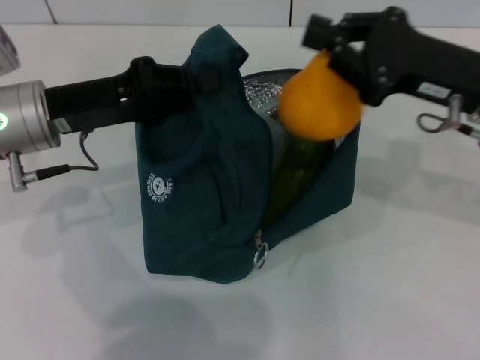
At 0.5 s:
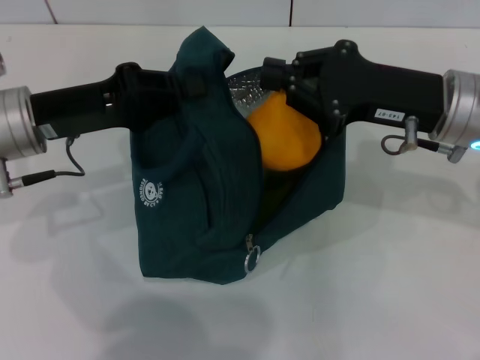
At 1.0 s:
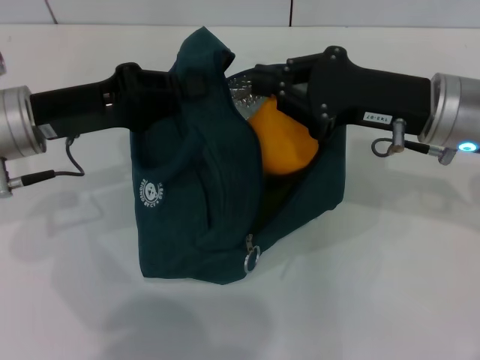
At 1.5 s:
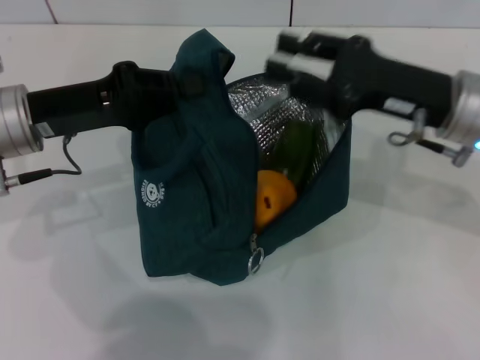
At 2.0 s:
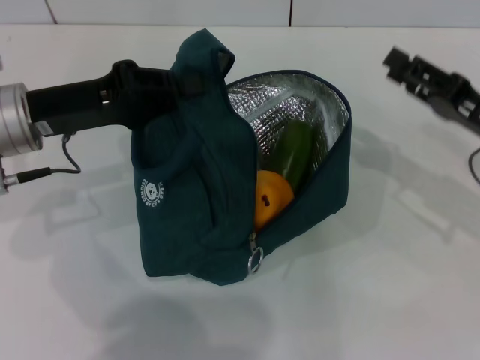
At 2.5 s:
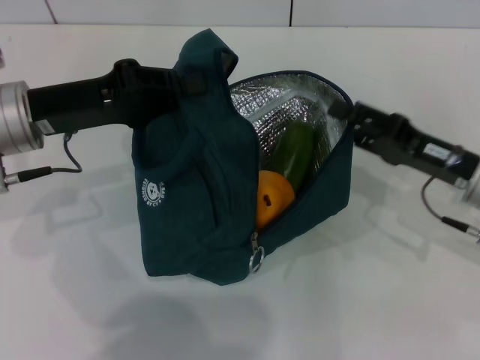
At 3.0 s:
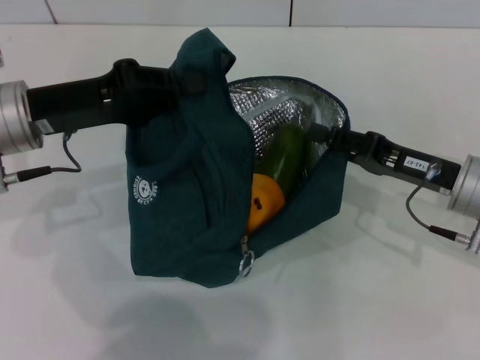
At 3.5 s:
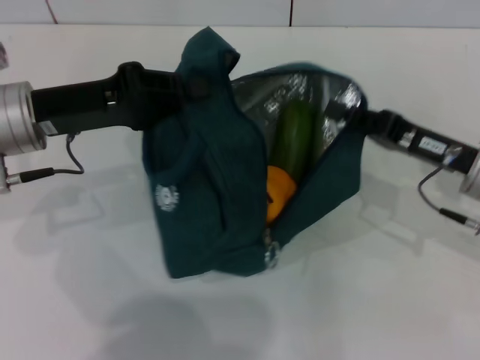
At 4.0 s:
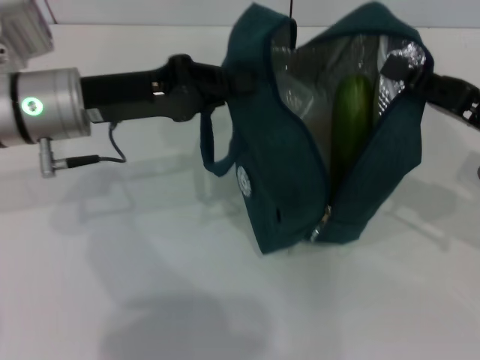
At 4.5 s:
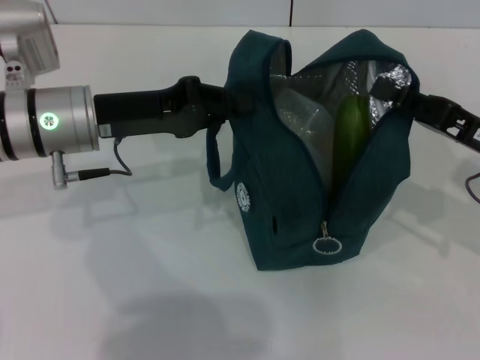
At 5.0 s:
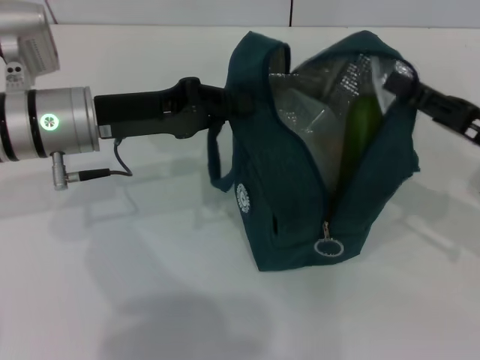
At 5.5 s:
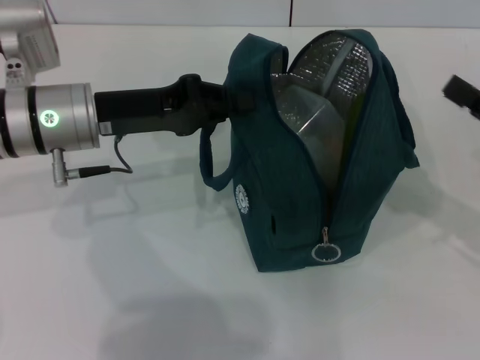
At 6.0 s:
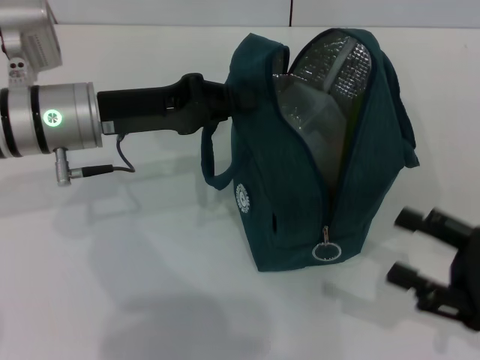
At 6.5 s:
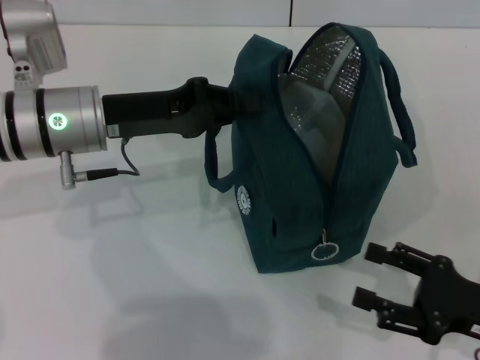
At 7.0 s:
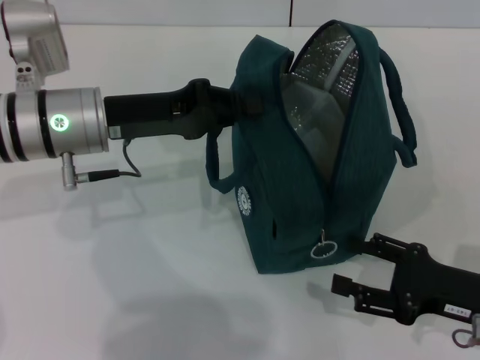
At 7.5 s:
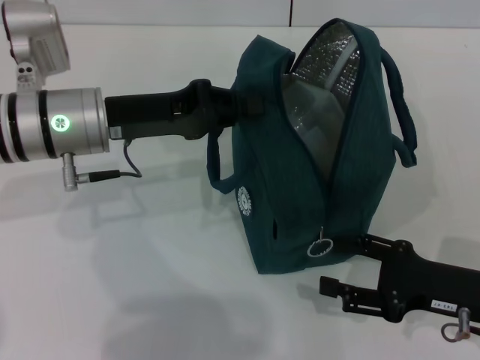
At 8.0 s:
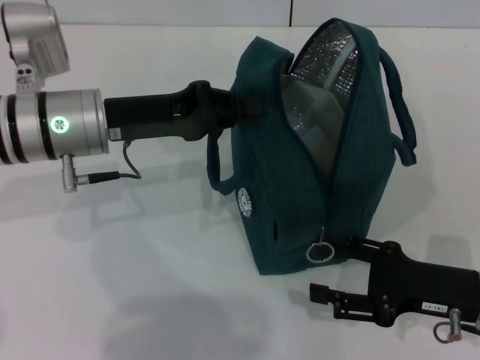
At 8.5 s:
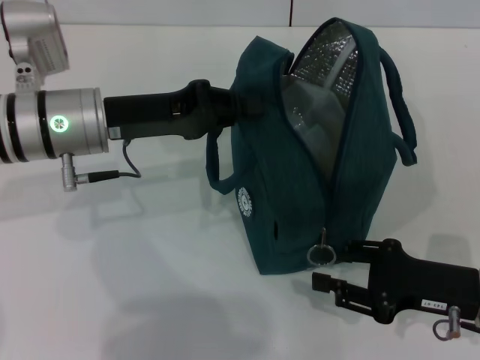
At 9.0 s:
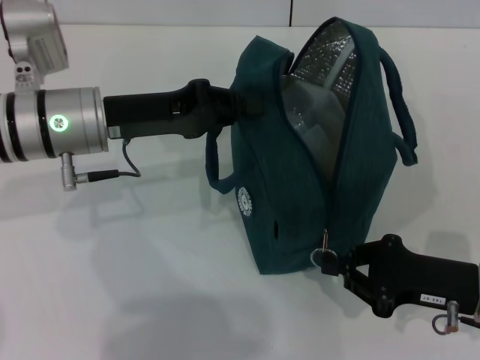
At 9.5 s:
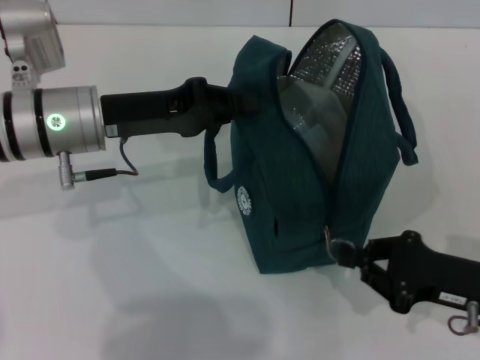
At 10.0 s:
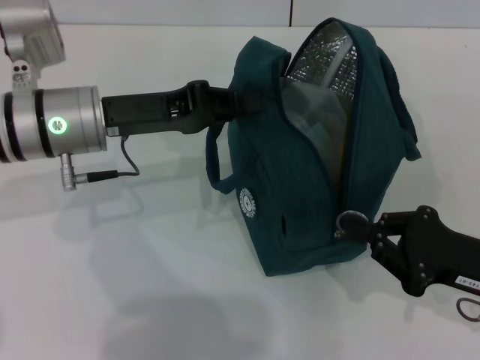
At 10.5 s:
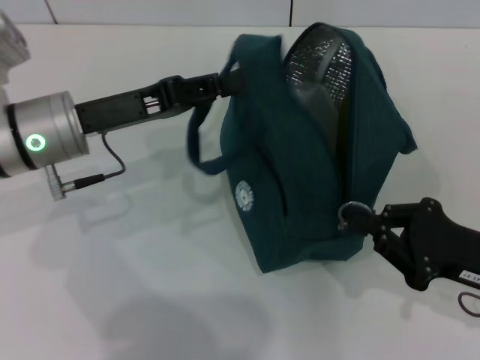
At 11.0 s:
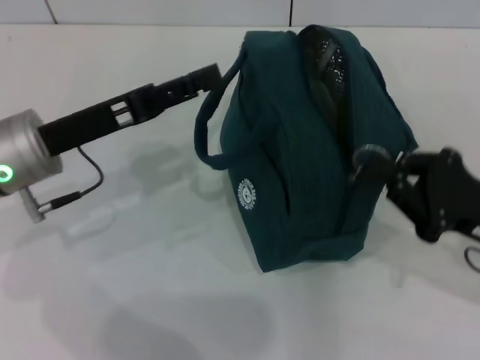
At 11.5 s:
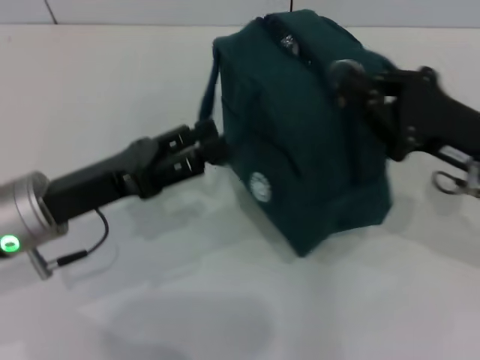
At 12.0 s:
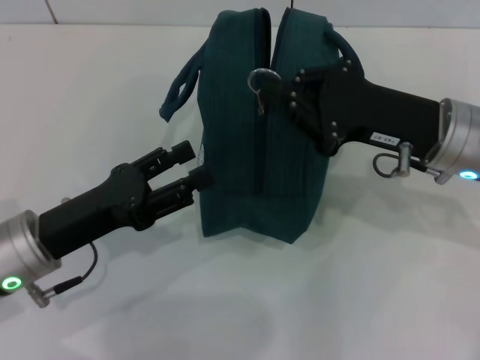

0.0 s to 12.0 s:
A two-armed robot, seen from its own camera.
Step, 1.5 to 5.0 s: Hold the lunch bag with your right hand.
Step, 5.5 to 10.5 s: Hold the lunch bag with your left hand.
0.0 to 2.0 s: The right gripper is displaced downward and to the right by roughly 10 cm, and opens up.
2.0 to 4.0 s: The right gripper closes its fingers.
4.0 to 6.0 s: The right gripper is displaced backward and downward by approximately 10 cm, and opens.
6.0 to 8.0 s: The right gripper moves some 5 cm.
8.0 to 10.0 s: The right gripper closes its fingers.
10.0 to 12.0 s: The right gripper goes approximately 15 cm forward, to the left and upward, while the left gripper shifts roughly 15 cm backward and downward, and opens up.

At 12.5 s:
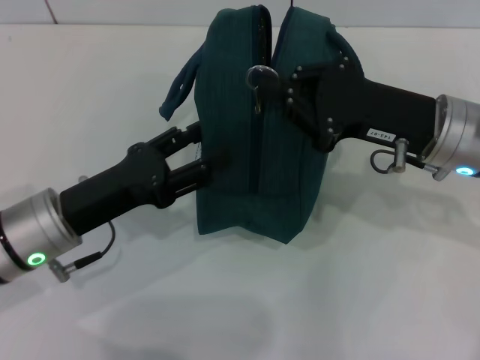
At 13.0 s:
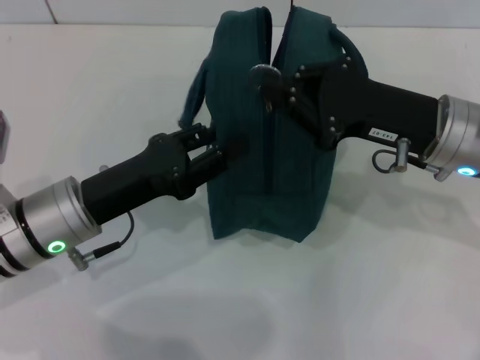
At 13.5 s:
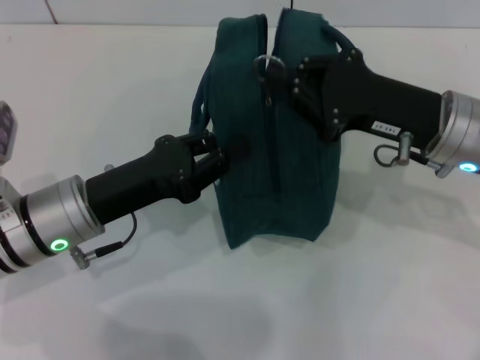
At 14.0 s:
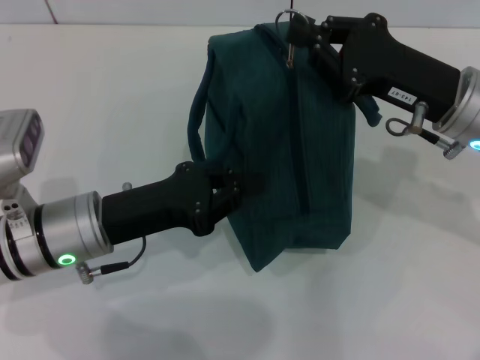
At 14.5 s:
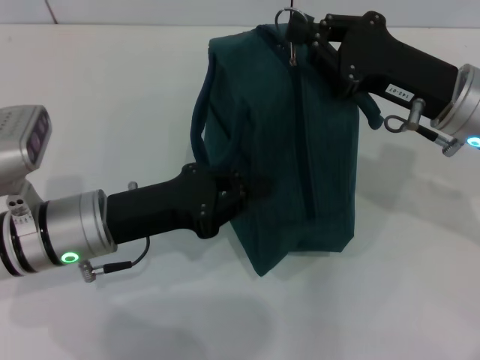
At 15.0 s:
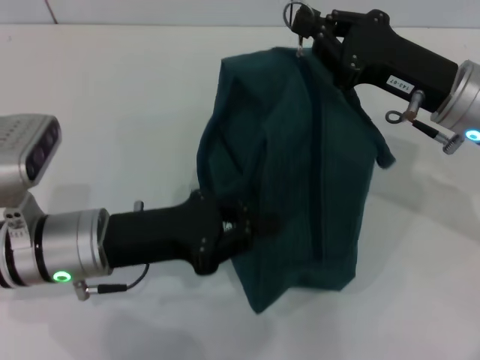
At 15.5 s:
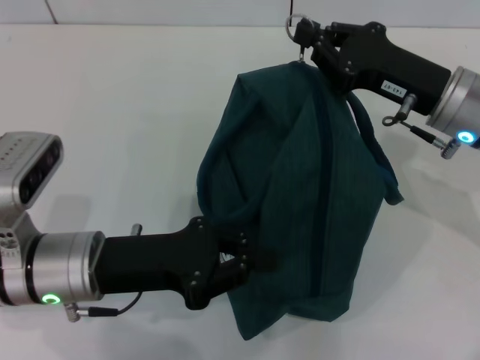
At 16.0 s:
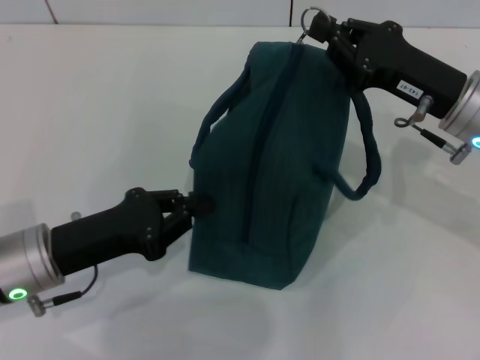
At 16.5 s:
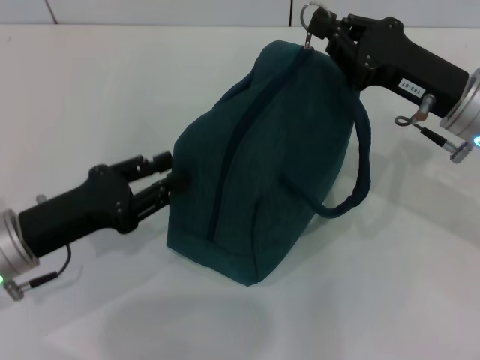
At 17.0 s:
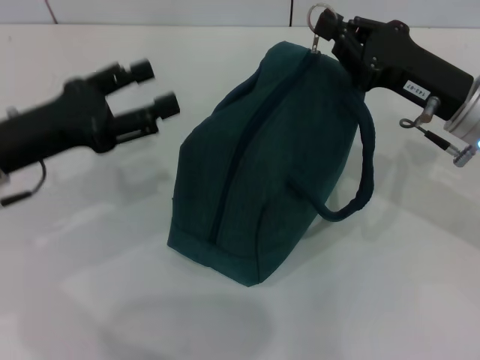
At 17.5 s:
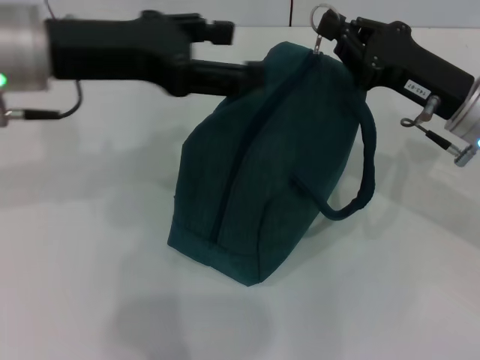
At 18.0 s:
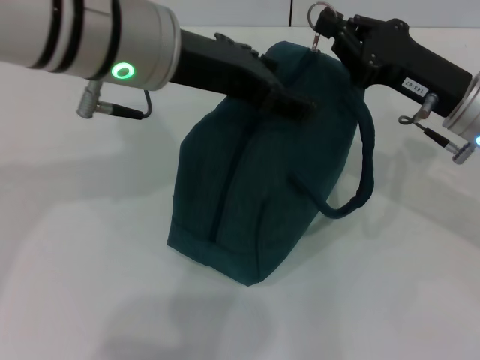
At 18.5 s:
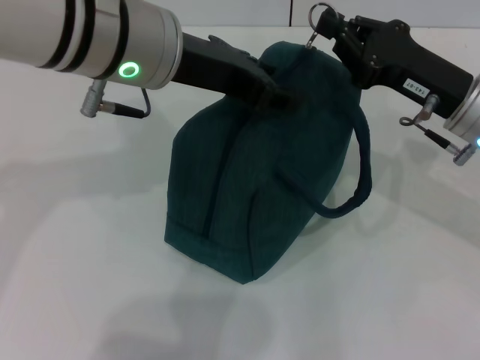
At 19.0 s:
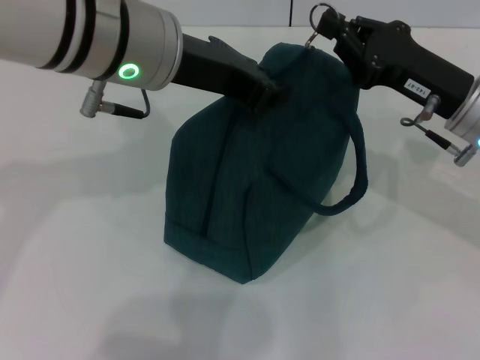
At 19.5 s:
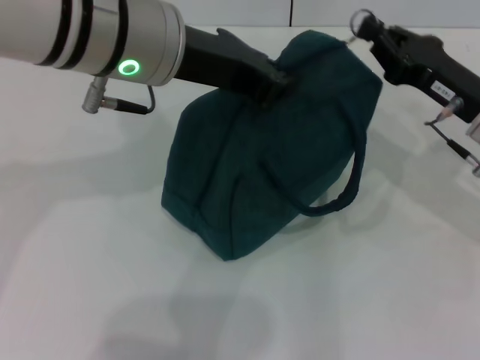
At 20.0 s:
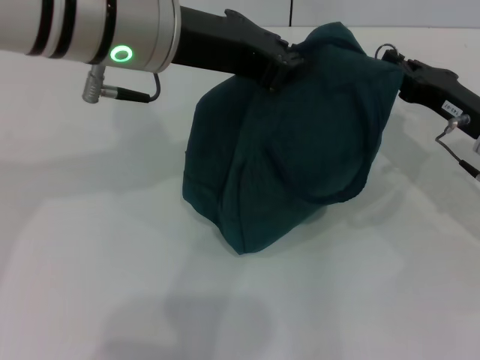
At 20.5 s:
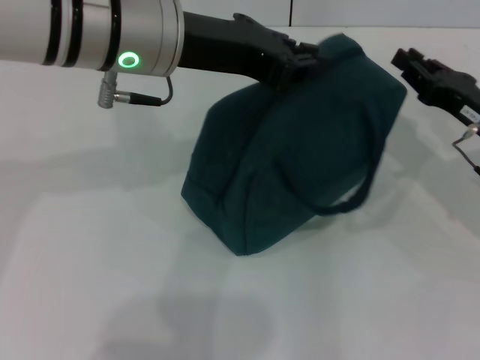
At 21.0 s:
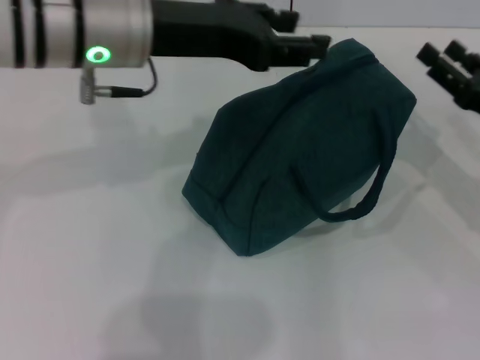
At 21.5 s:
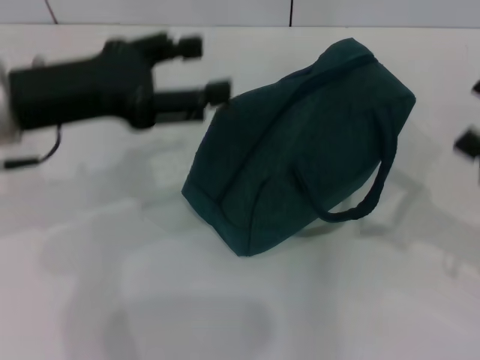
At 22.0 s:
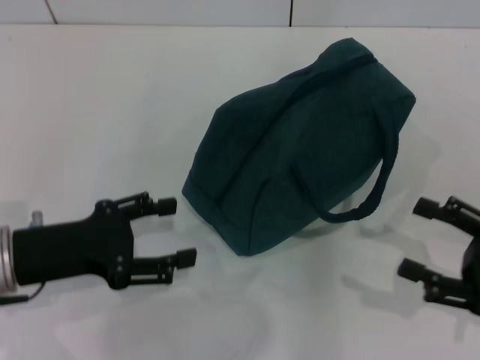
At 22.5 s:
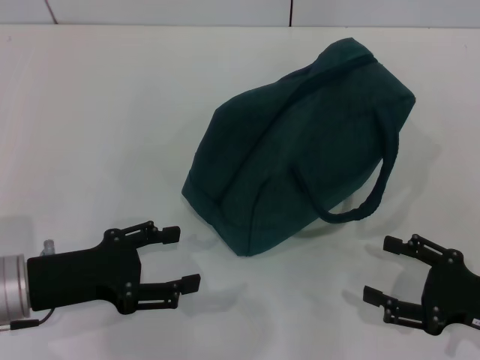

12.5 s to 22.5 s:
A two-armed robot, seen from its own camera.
Step, 12.5 to 20.0 s: Zip up the lunch bag with your right hand.
12.5 to 14.5 s: The left gripper closes.
14.5 to 16.5 s: The left gripper is displaced to the left by some 5 cm.
16.5 to 18.5 s: The left gripper moves upward, to the right and forward, roughly 25 cm, and opens up.
18.5 to 20.5 s: The left gripper closes up; the right gripper heads to the right and downward, covering about 10 cm.
20.5 to 22.5 s: The left gripper travels downward, to the left and backward by some 25 cm, and opens its fingers. The right gripper moves backward and downward, roughly 15 cm, and opens its fingers.

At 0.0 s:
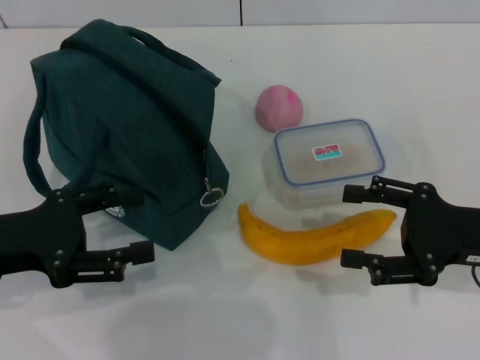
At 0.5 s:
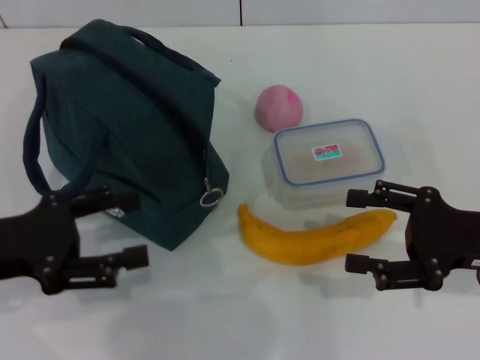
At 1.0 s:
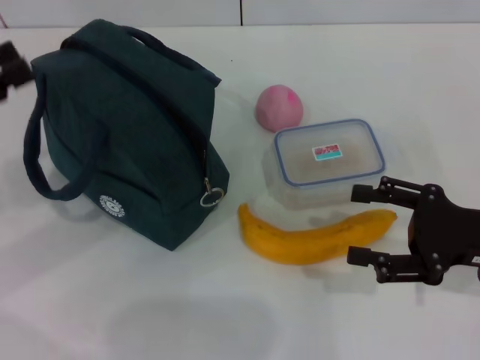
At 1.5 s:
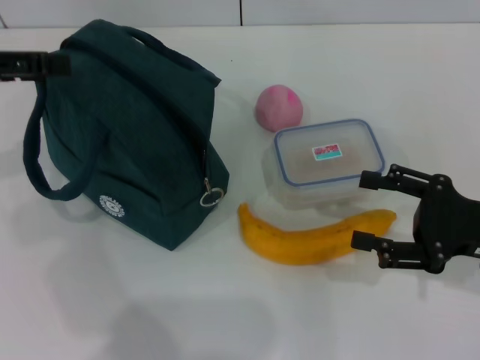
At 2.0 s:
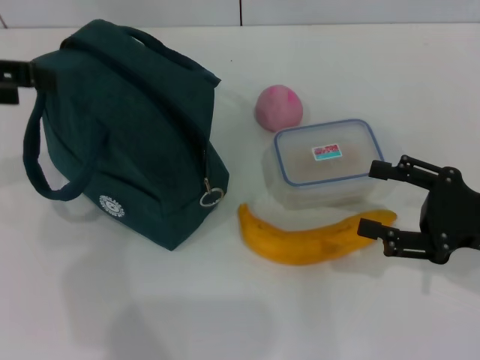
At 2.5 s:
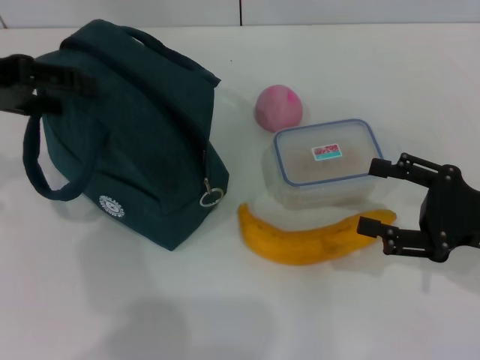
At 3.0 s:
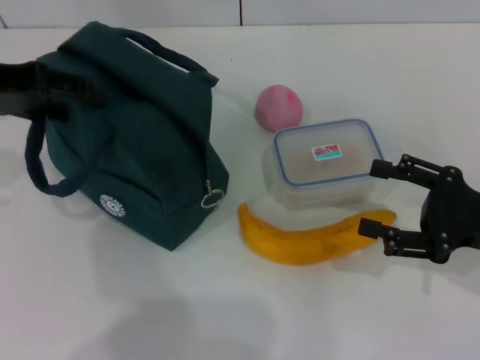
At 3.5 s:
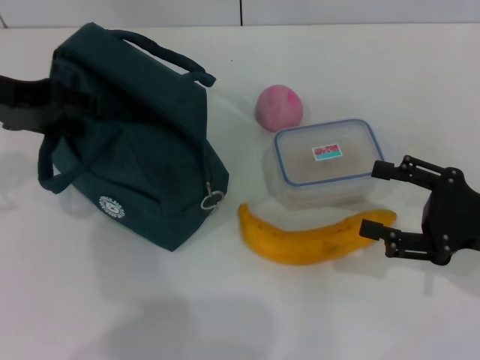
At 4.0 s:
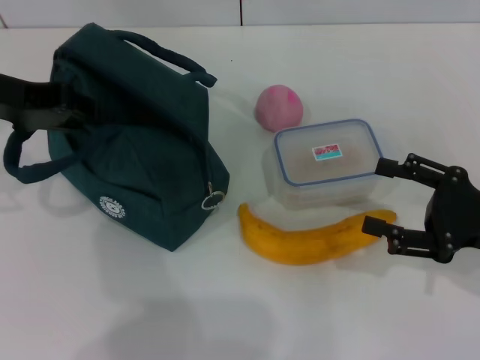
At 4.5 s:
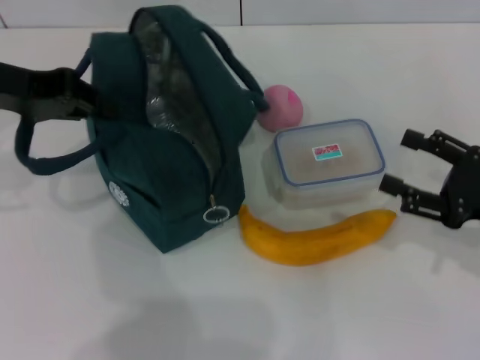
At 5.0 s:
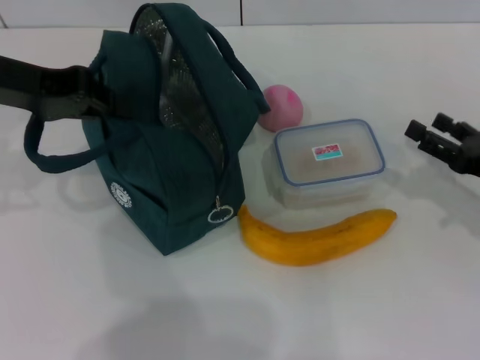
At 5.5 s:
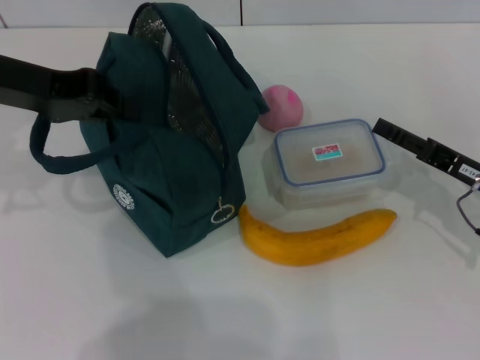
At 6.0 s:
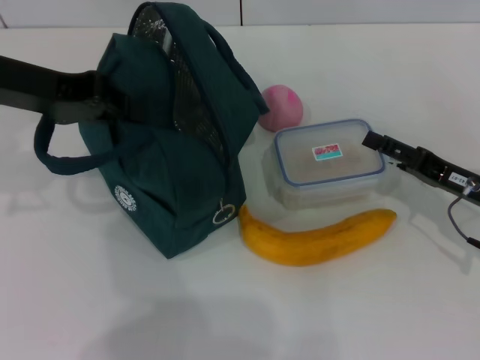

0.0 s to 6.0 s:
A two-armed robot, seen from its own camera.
Step, 0.0 to 3.5 s: Hold the lunch bag with your left hand.
0.0 to 2.0 s: The left gripper shifts approximately 15 cm upward and forward.
2.0 to 4.0 s: The left gripper changes place by about 10 cm, and closes.
4.0 to 6.0 s: The right gripper changes place by approximately 5 cm. The left gripper closes its fingers.
